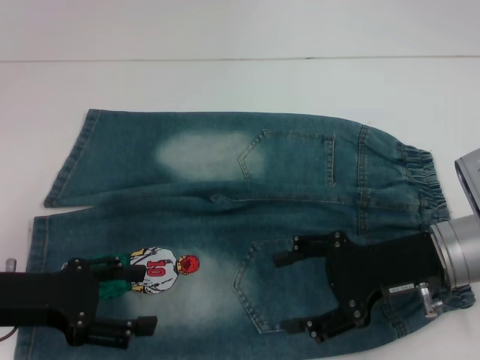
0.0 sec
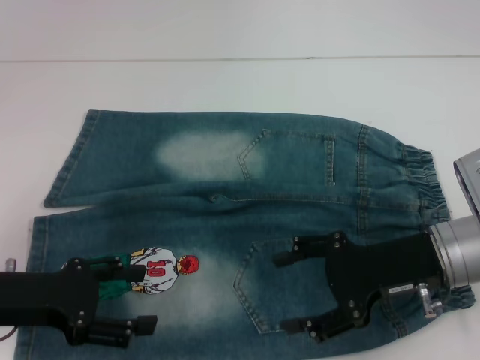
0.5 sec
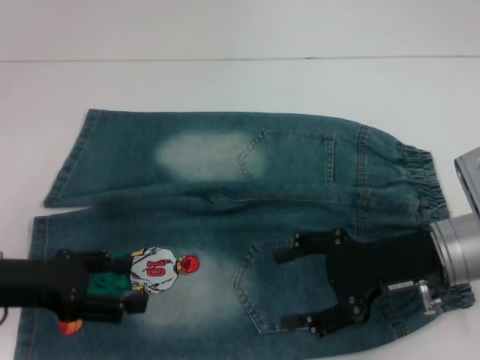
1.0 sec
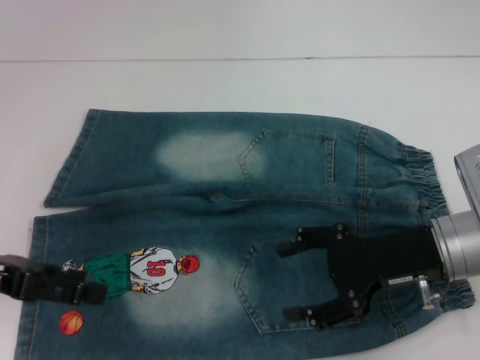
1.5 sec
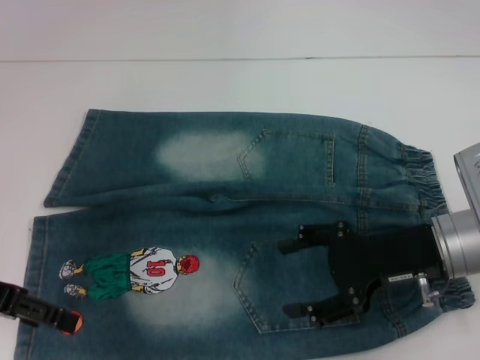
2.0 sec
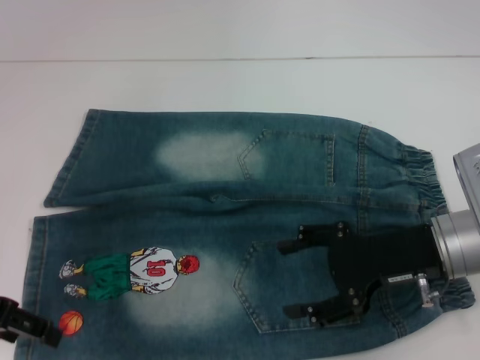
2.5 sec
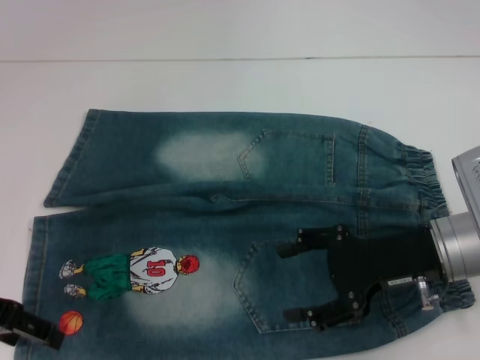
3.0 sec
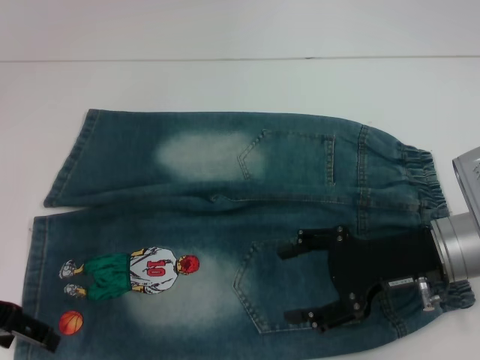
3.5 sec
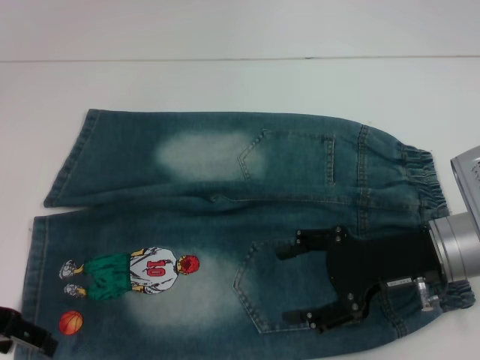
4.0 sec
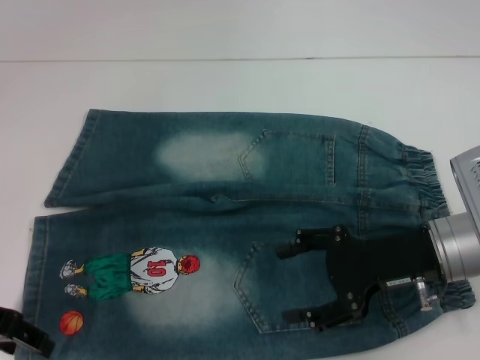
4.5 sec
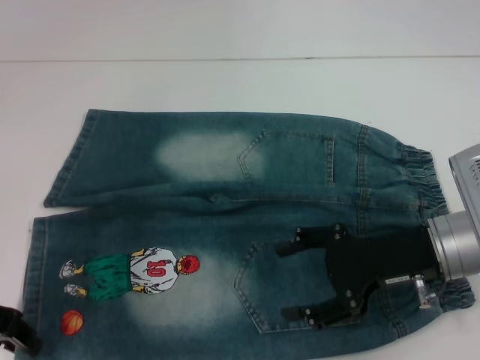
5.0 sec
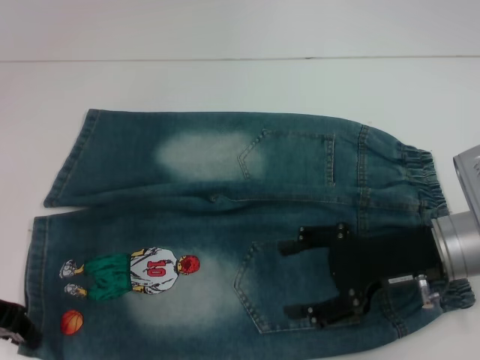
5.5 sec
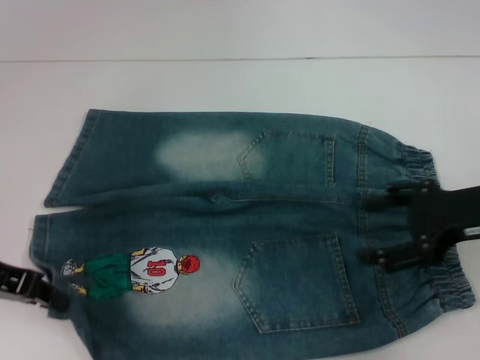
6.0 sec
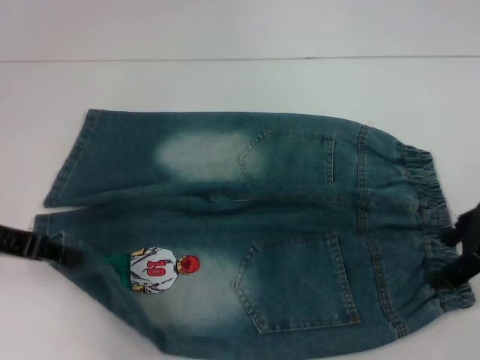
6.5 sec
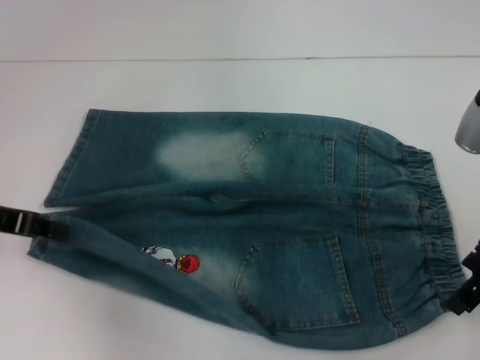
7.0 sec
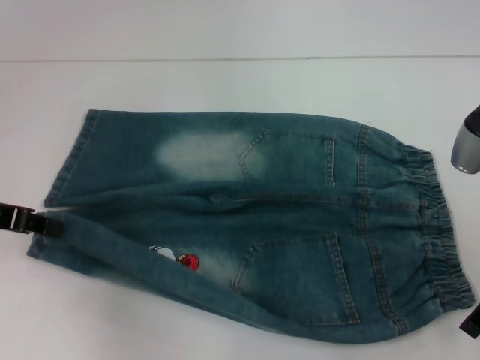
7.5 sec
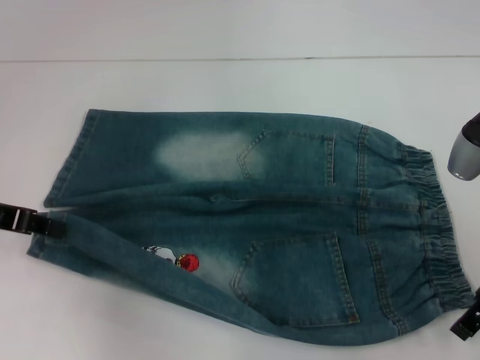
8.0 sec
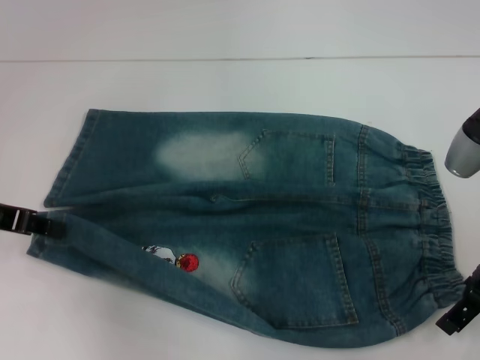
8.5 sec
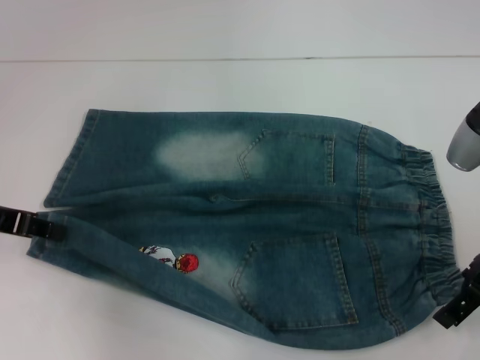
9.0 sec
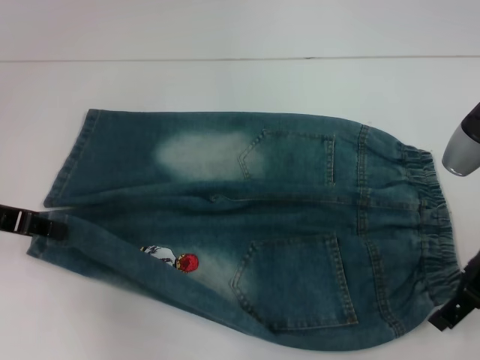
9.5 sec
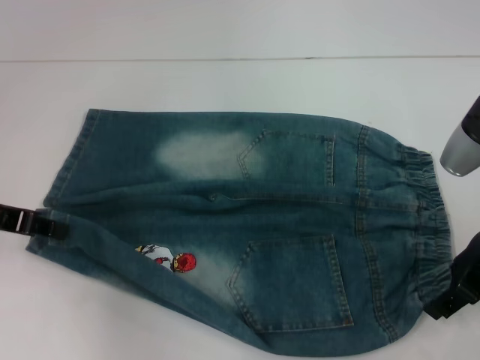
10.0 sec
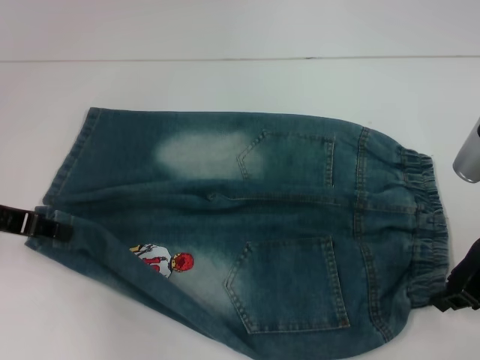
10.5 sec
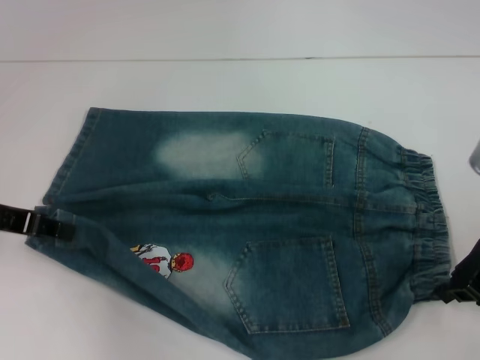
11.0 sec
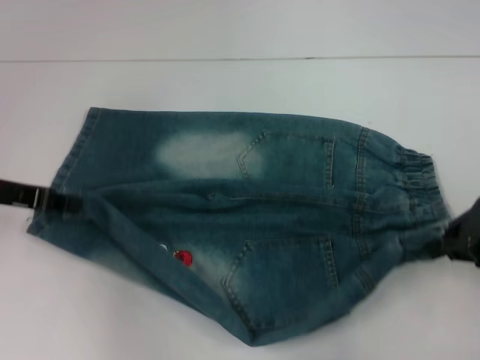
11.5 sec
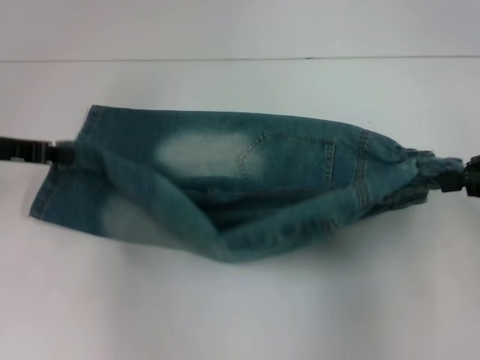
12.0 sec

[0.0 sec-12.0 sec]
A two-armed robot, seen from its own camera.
Step, 0.0 sec to 5.0 sec: Grab the lower left pant leg with your left hand.
Step, 5.5 sec to 10.5 sec: Hold the lower right waistband with your right hand.
0.0 sec to 2.0 sec: The left gripper moves upward, about 5 cm.
2.0 sec to 4.0 sec: The grippers move only a little.
4.0 sec to 6.0 sec: The right gripper travels to the right and upward by about 10 cm, while the left gripper closes its fingers.
8.0 sec to 10.0 sec: The grippers stay close to where they were, moving slightly.
10.0 sec to 12.0 sec: The right gripper travels to the right and upward by approximately 10 cm, and closes its fingers.

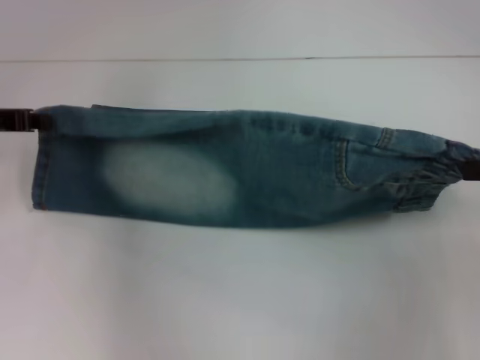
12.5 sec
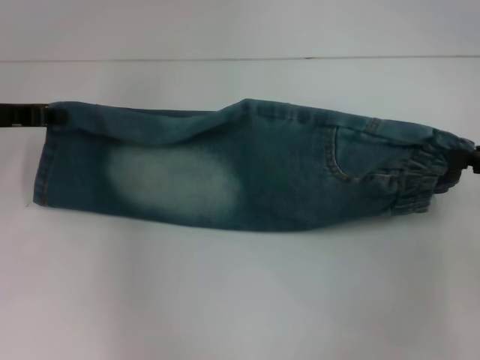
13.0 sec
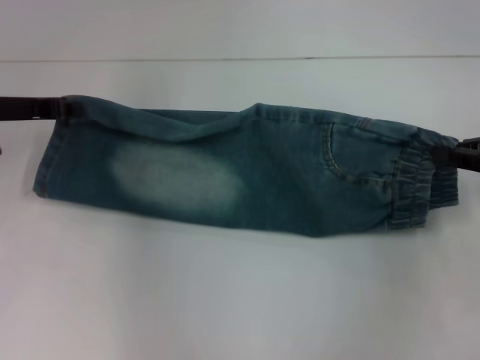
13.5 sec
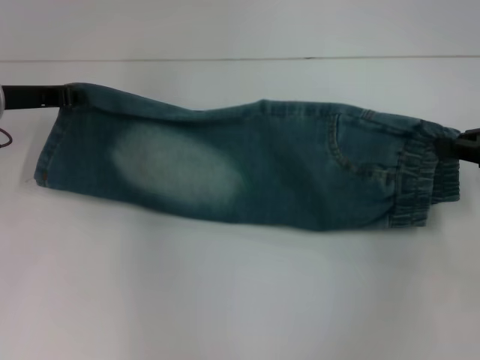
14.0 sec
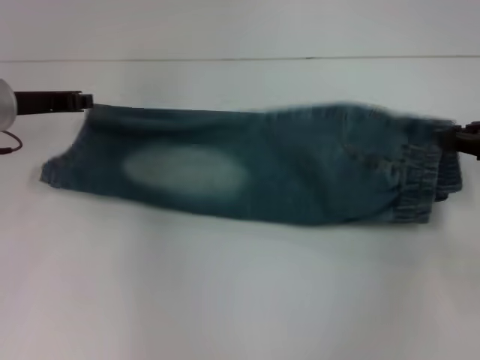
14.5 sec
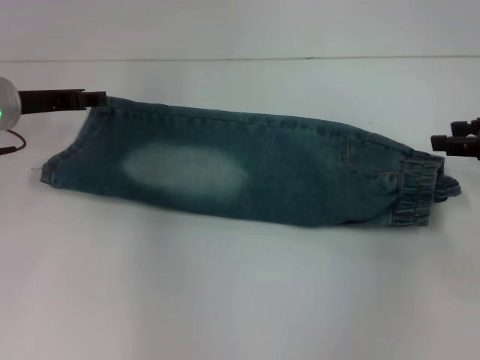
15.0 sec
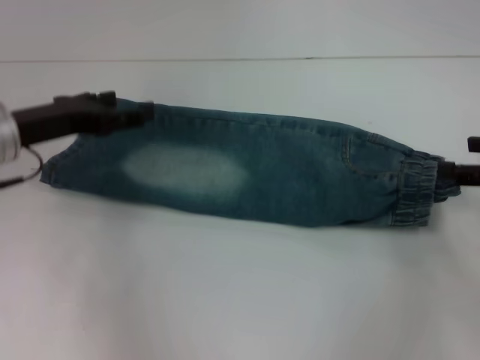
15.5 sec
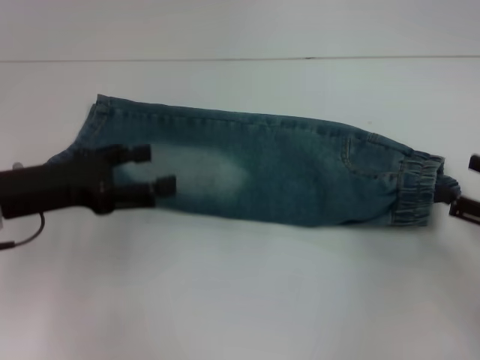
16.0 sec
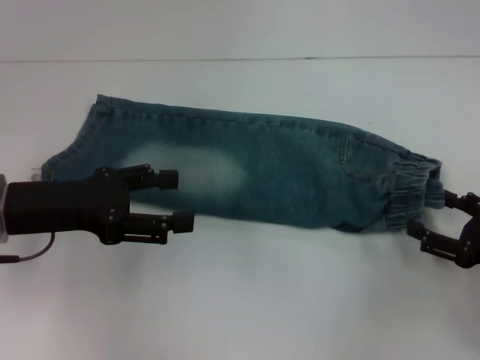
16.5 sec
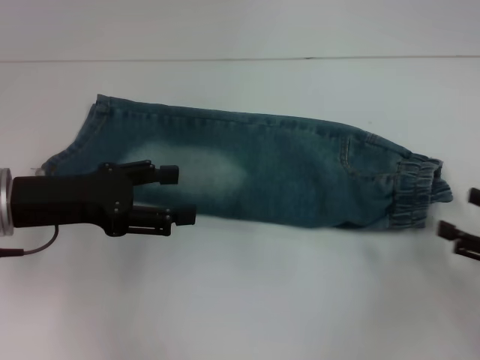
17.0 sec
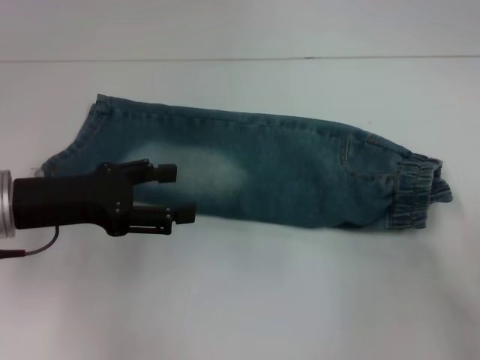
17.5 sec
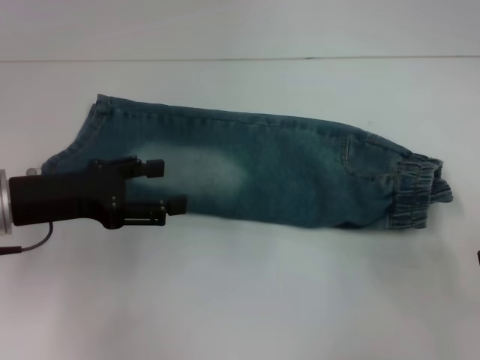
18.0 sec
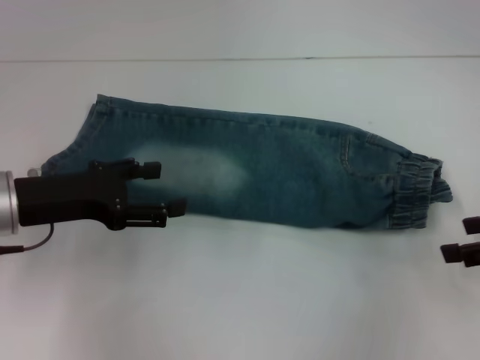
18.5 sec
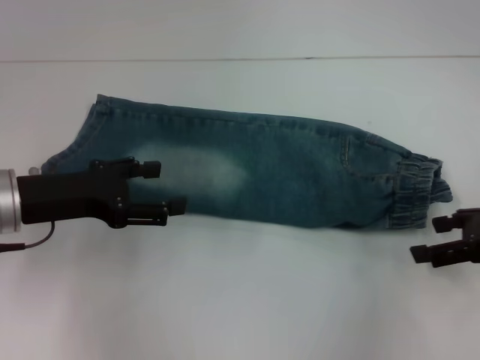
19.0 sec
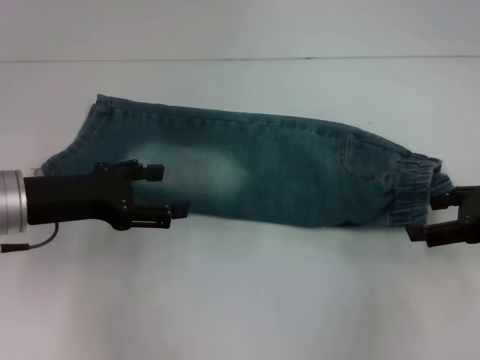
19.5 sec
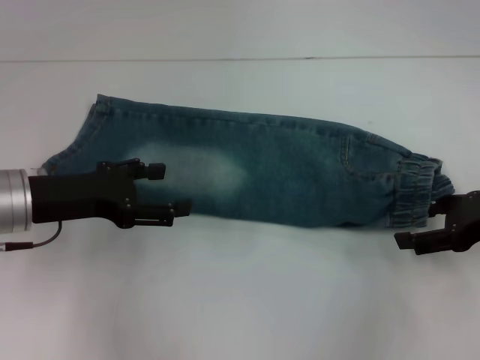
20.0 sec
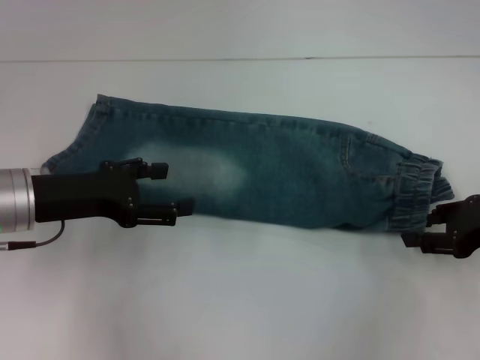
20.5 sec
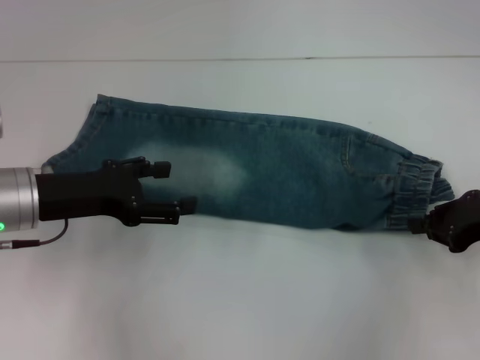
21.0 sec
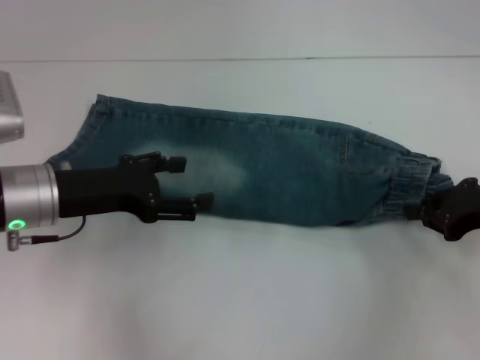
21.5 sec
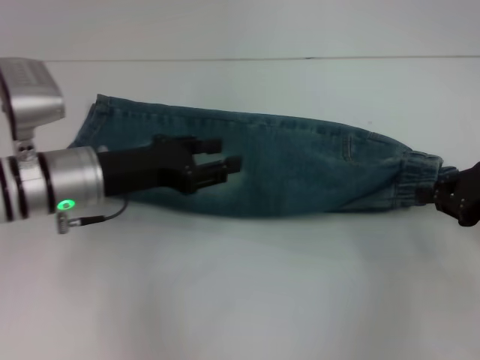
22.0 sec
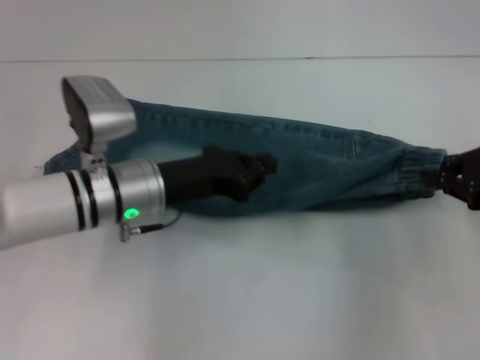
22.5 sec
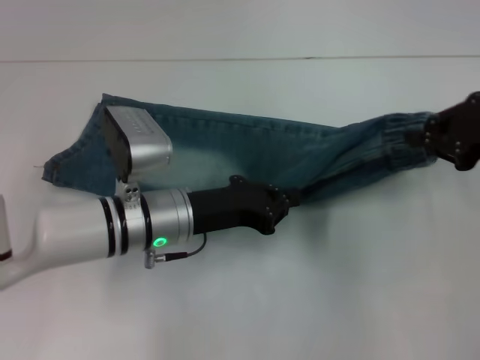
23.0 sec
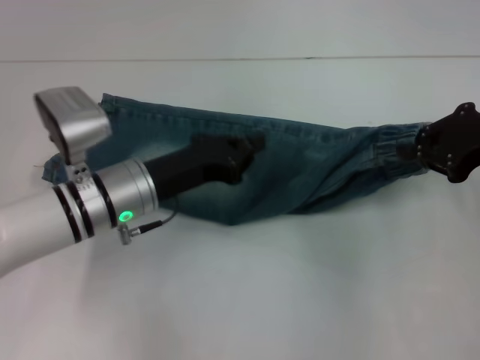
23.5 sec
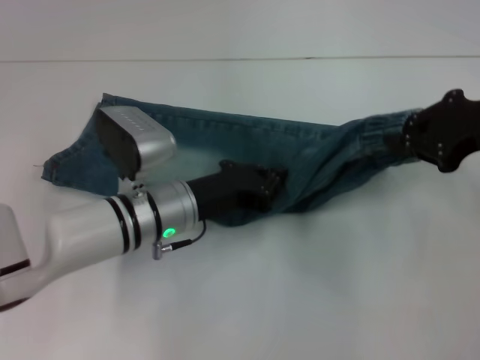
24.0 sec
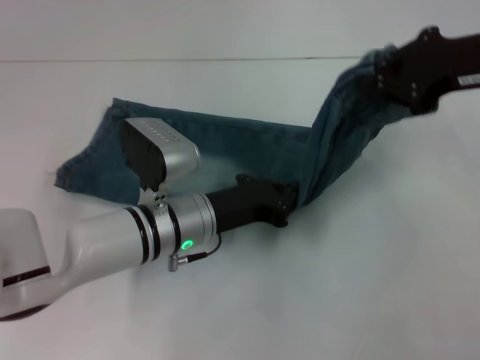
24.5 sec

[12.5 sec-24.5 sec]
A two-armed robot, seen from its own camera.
Step, 12.5 sec to 14.5 sec: Fold upward with your right hand.
Step, 15.0 sec to 21.0 sec: Grab the waistband with your right hand.
12.5 sec to 14.5 sec: The right gripper moves forward, roughly 5 cm. Meanwhile the left gripper shifts by roughly 5 cm.
14.5 sec to 16.5 sec: The left gripper is displaced backward by roughly 10 cm, and opens its fingers. Meanwhile the right gripper goes some 15 cm backward and downward, and opens up.
16.5 sec to 18.5 sec: The right gripper moves upward, about 10 cm.
18.5 sec to 20.5 sec: The right gripper moves some 5 cm, and closes.
20.5 sec to 22.5 sec: The left gripper heads to the right, covering some 10 cm, and closes its fingers. The right gripper shifts by approximately 5 cm, and closes its fingers.
22.5 sec to 24.5 sec: The right gripper goes roughly 10 cm upward, to the left and forward. Meanwhile the left gripper moves about 5 cm.

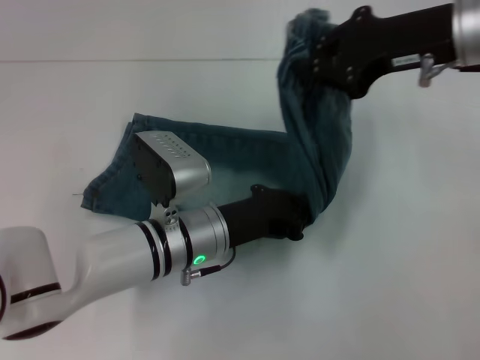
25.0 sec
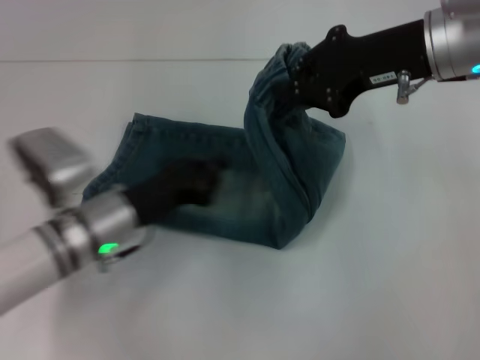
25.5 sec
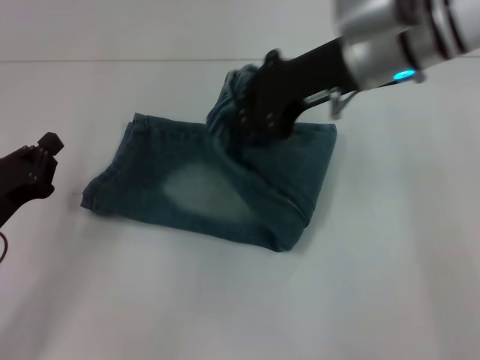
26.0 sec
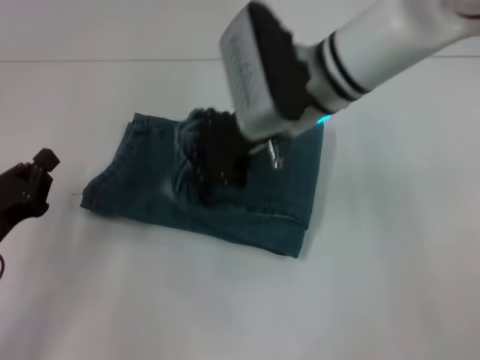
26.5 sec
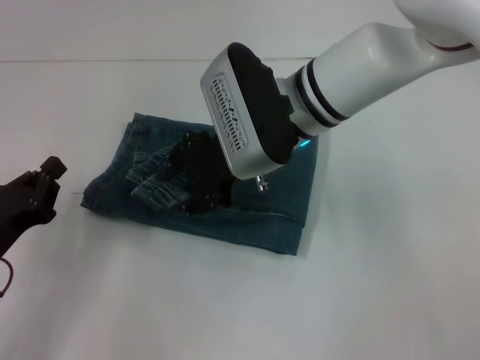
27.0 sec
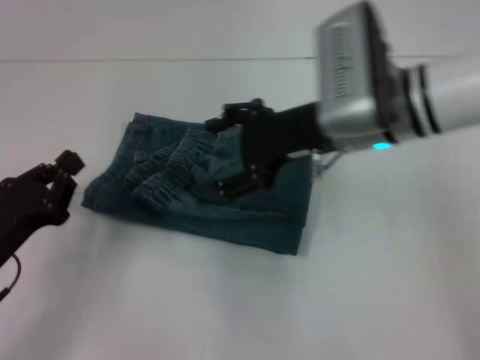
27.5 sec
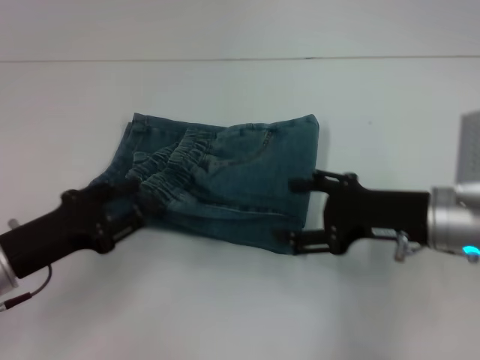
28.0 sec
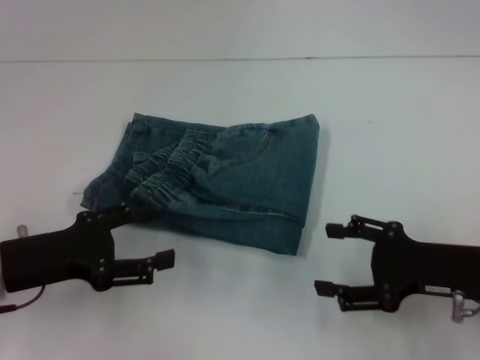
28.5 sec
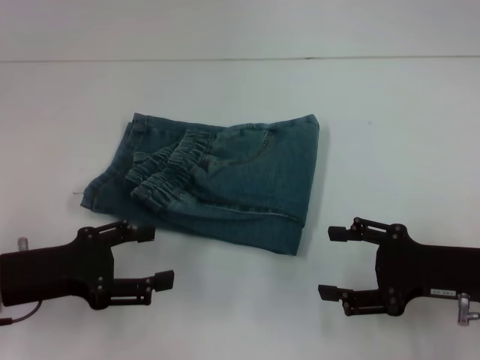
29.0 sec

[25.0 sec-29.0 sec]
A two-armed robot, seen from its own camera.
Step, 25.5 sec to 26.5 sec: Fold to the left with your right hand.
25.0 sec to 27.0 sec: The right gripper goes about 20 cm to the left and downward. The left gripper shifts roughly 20 cm to the left.
27.0 sec to 29.0 sec: The left gripper opens its fingers. The right gripper moves to the right, backward and downward, about 30 cm, and opens up.
